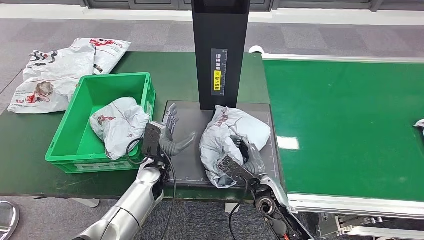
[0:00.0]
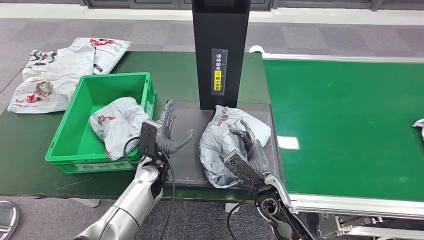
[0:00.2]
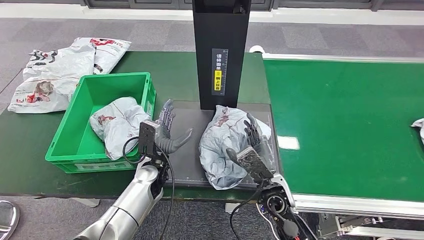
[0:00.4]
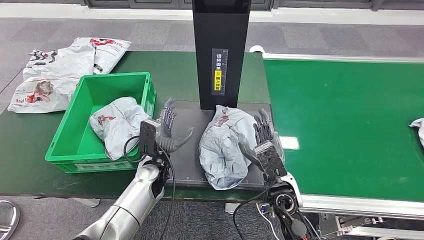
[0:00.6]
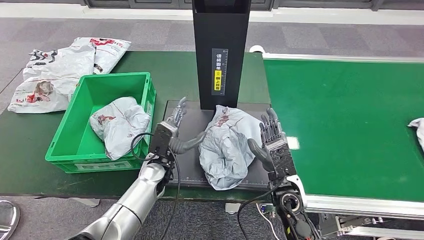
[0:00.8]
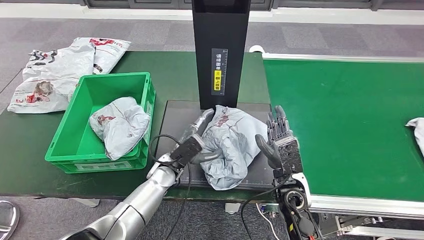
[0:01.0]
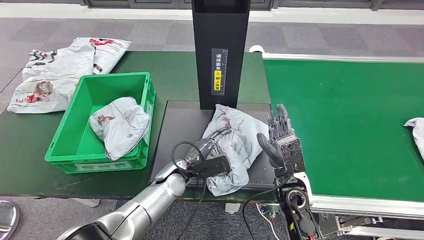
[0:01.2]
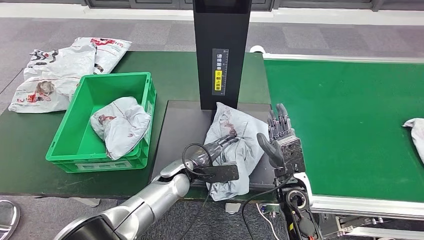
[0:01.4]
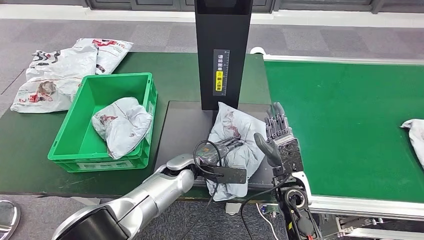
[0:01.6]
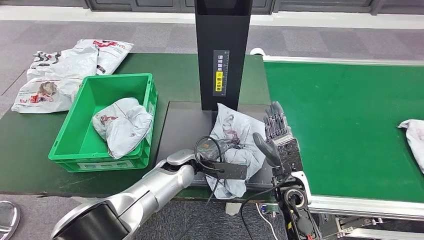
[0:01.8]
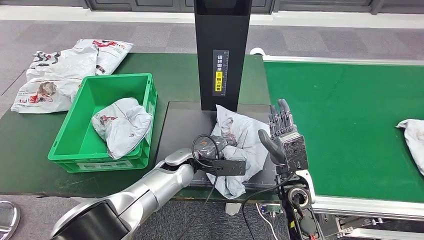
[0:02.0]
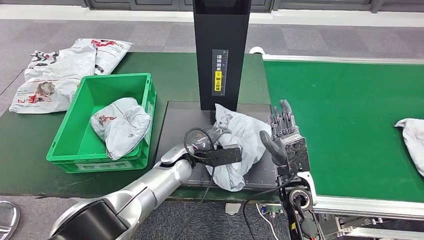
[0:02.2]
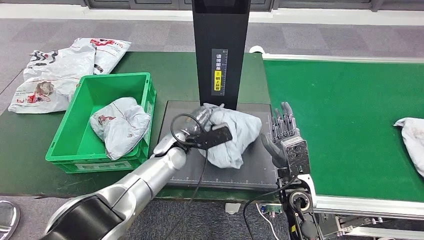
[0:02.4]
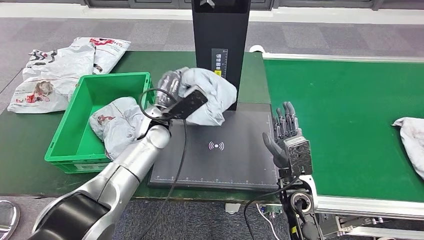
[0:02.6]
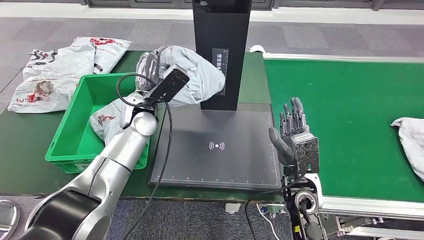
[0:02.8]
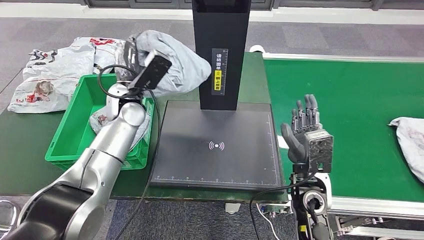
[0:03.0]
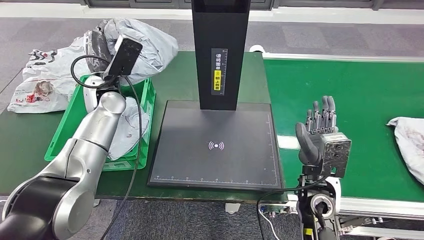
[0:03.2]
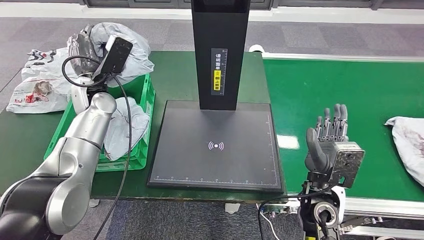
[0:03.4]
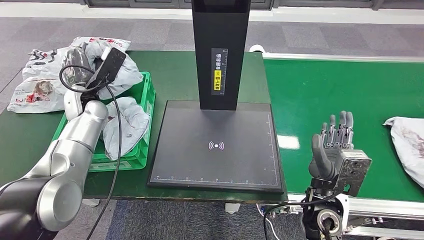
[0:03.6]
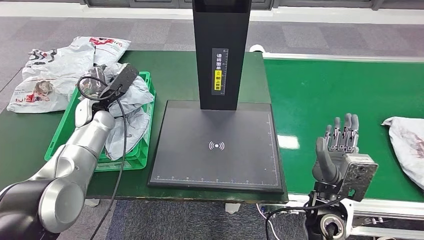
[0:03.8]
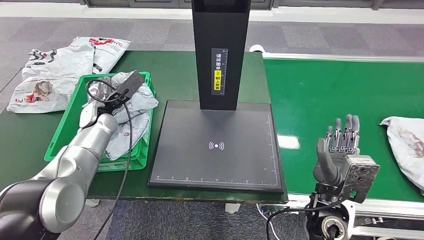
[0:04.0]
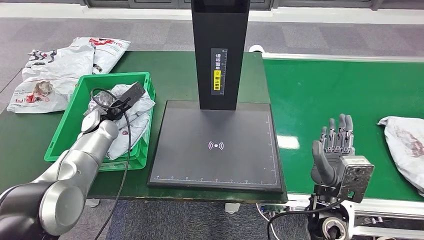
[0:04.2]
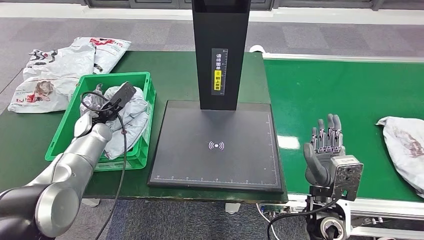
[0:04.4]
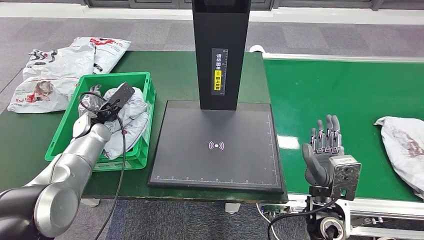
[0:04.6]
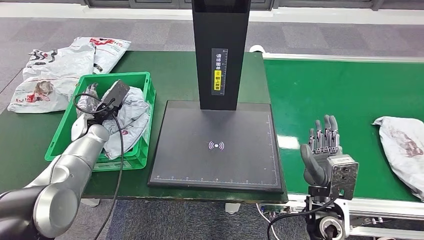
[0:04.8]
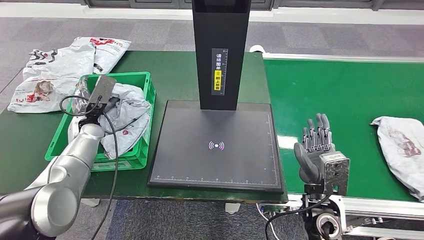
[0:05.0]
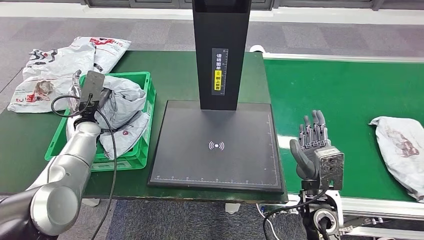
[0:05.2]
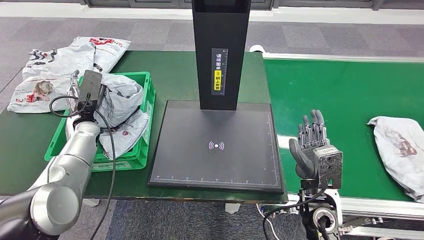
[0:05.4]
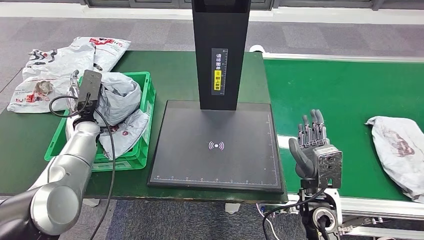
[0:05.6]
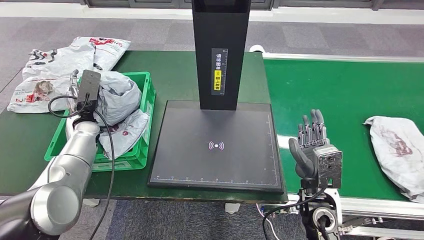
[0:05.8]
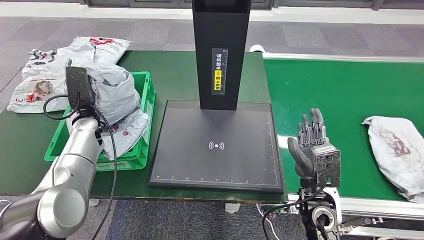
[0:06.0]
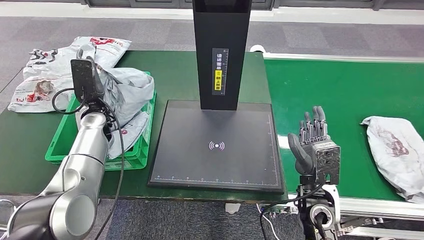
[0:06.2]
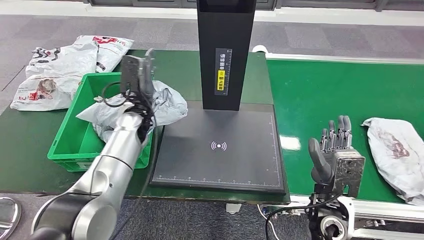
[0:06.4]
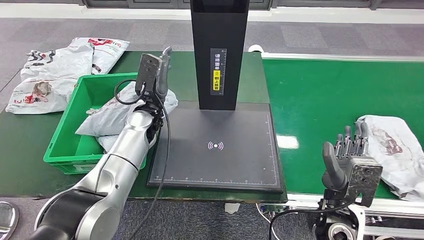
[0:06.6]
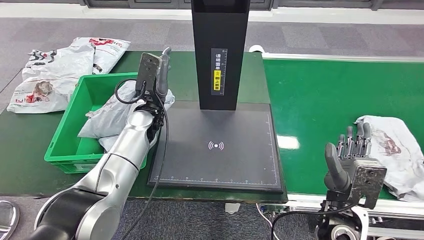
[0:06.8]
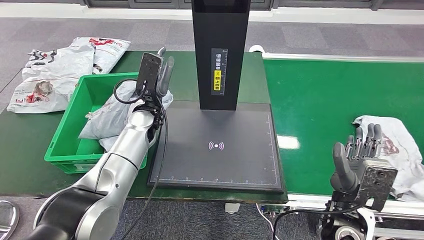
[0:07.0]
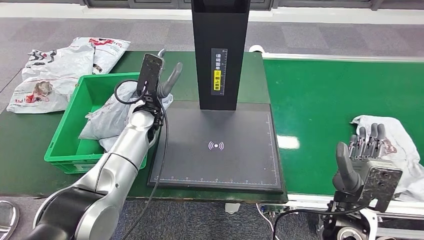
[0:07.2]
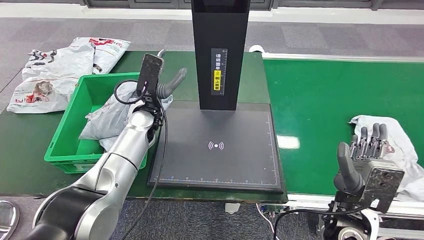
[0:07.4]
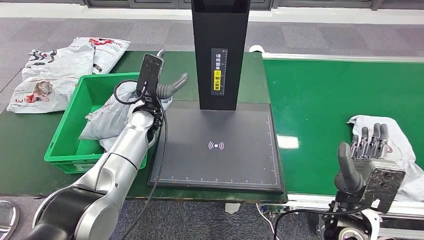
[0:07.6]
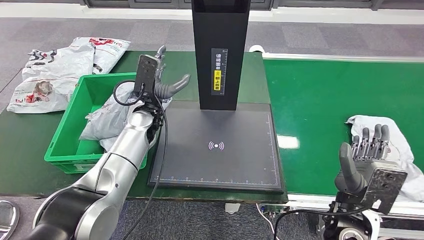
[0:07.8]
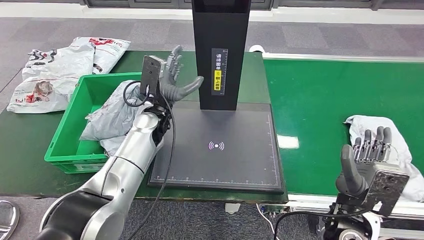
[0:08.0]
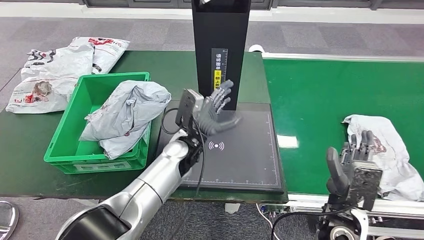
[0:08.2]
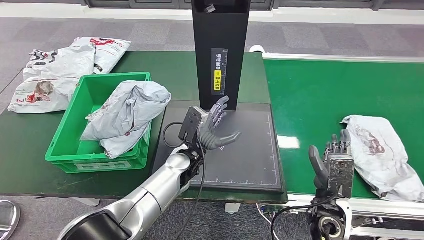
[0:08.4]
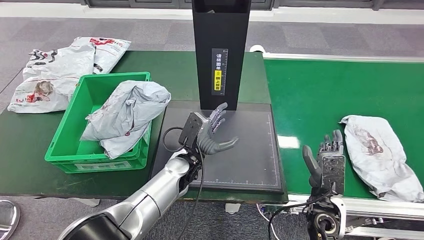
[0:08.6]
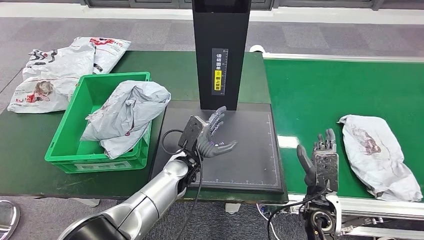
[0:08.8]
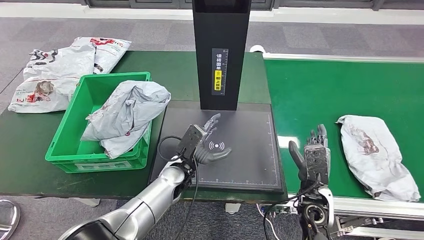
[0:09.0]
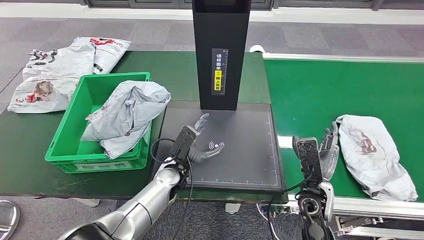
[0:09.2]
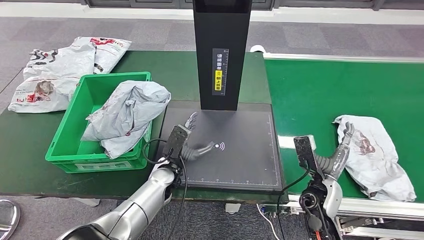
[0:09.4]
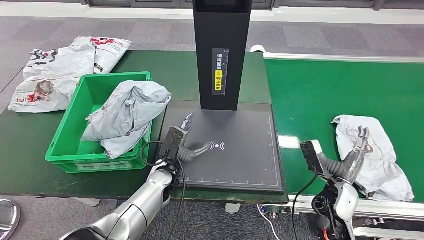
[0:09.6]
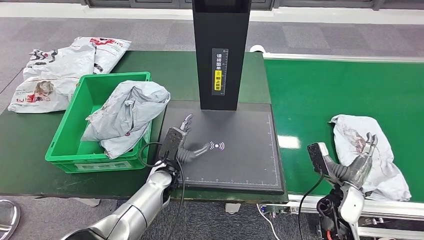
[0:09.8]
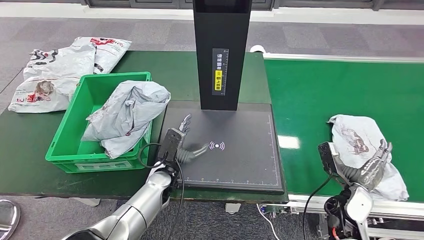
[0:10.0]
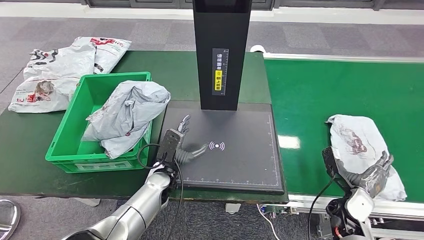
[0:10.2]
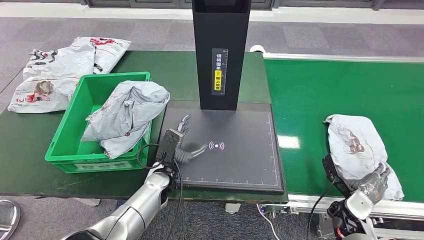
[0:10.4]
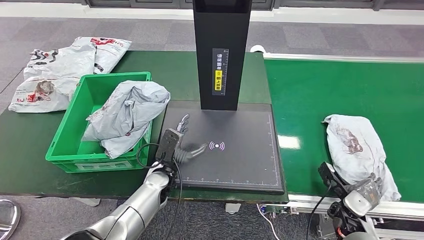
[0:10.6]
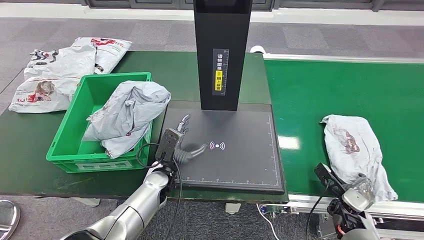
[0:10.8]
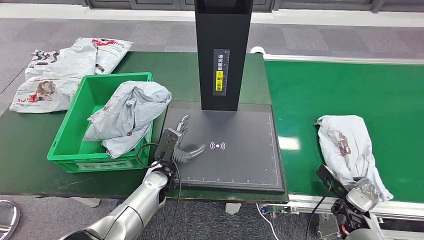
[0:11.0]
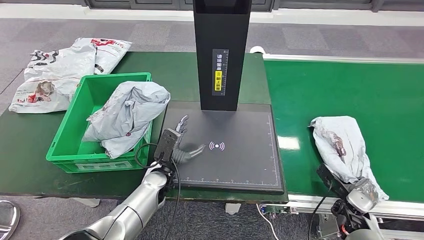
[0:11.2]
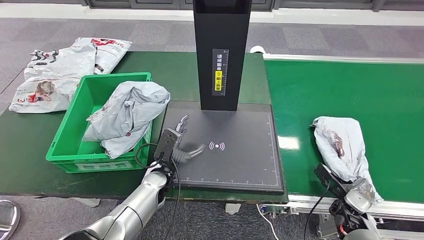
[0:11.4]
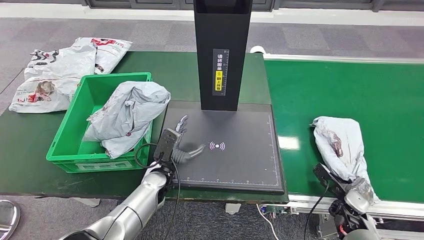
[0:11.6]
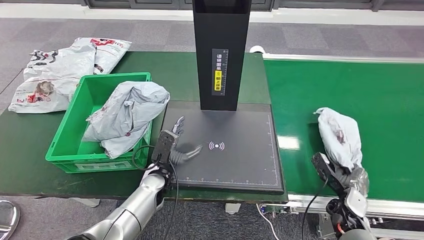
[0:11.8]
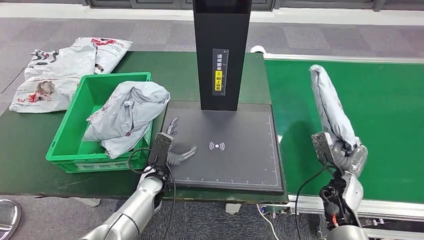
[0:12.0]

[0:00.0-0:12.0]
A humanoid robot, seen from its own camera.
Step, 0:00.8 to 0:02.6: Pick up the parcel from the inbound machine.
Step, 0:03.0 to 0:10.0: Place the parcel into the delivery box.
Step, 0:10.2 to 0:11.8: Pick up the parcel from the conveyor belt.
0:09.0 to 0:10.4: The right hand moves to the right and downward, roughly 15 cm. The left hand changes place by roughly 5 cm.
0:10.4 to 0:12.0: The right hand moves roughly 5 cm.

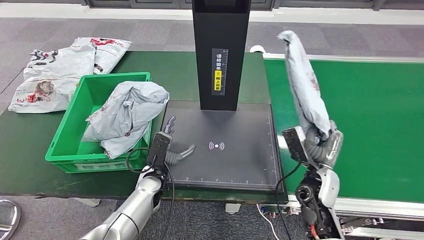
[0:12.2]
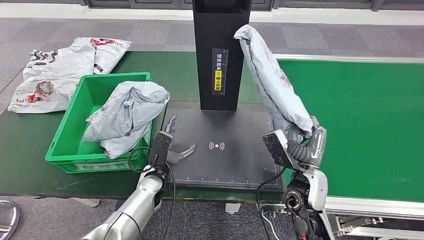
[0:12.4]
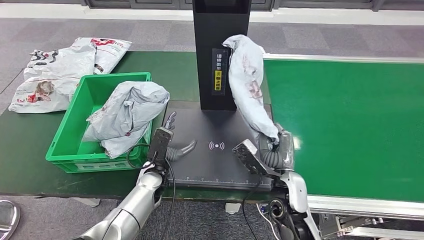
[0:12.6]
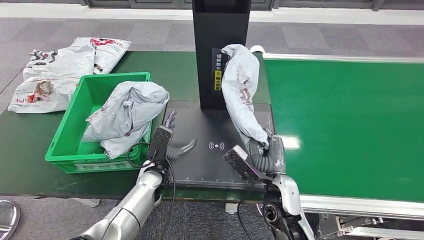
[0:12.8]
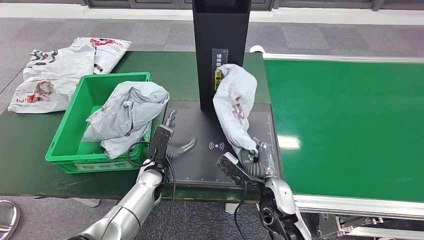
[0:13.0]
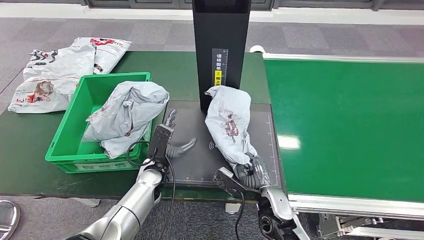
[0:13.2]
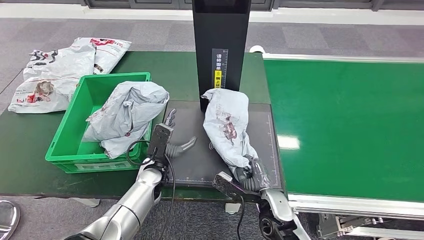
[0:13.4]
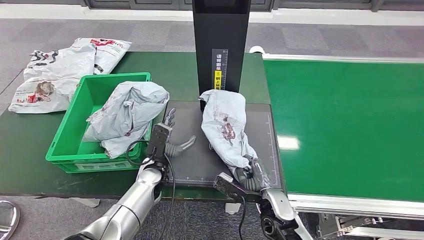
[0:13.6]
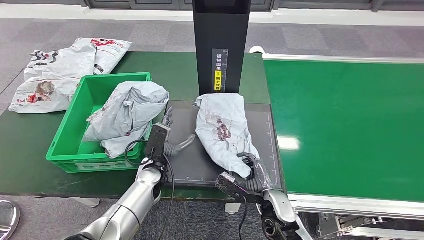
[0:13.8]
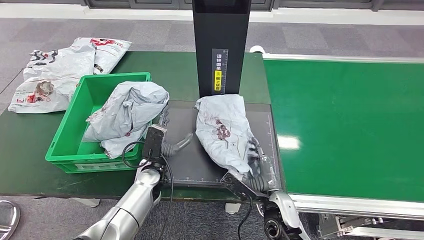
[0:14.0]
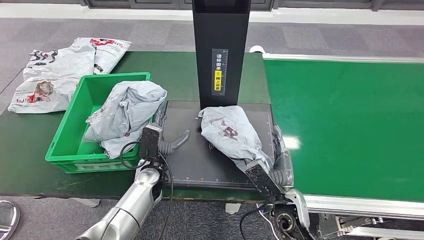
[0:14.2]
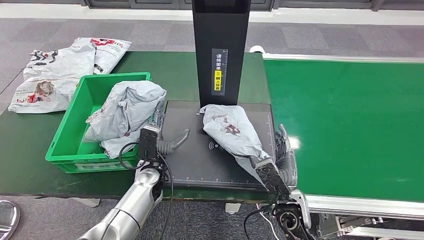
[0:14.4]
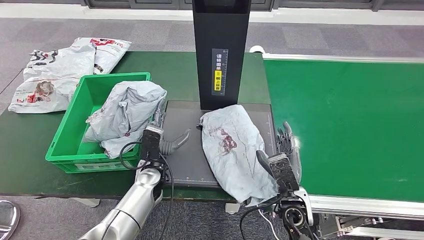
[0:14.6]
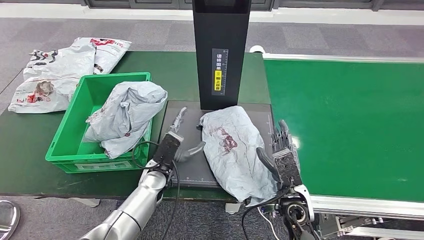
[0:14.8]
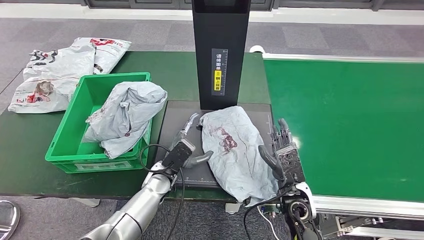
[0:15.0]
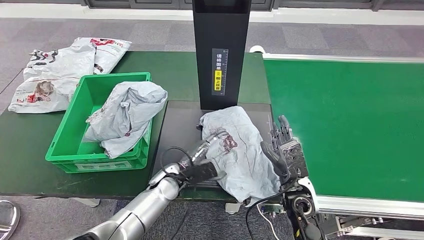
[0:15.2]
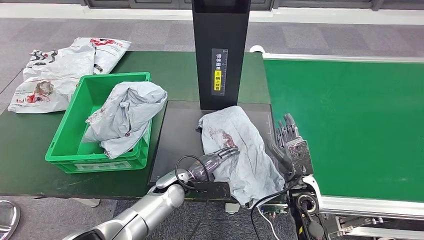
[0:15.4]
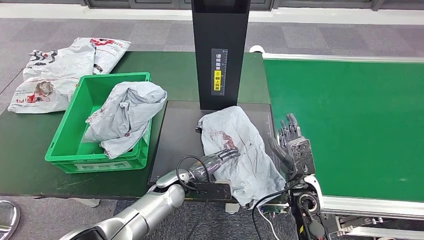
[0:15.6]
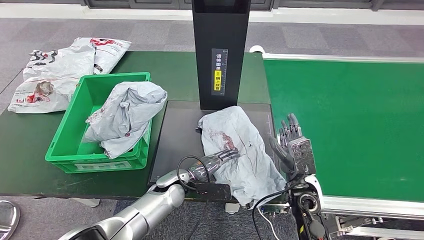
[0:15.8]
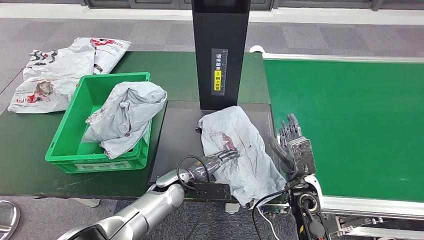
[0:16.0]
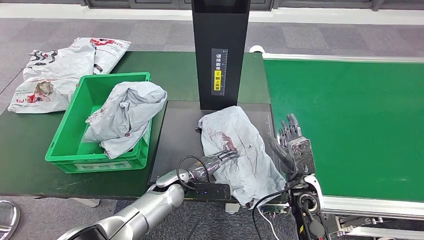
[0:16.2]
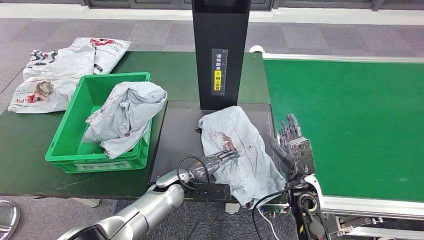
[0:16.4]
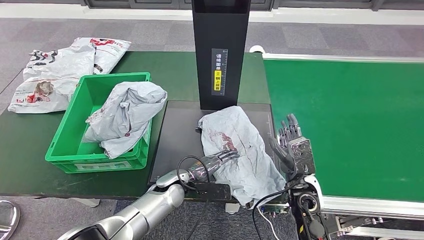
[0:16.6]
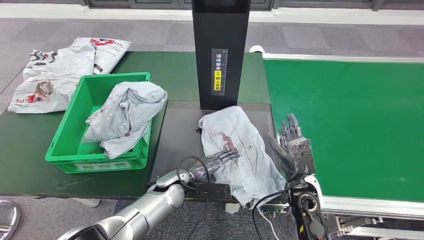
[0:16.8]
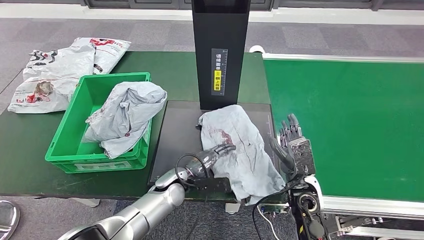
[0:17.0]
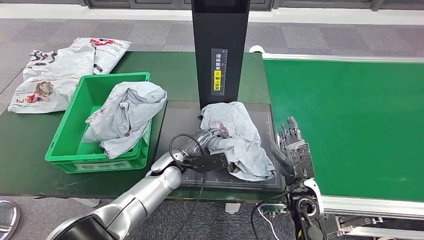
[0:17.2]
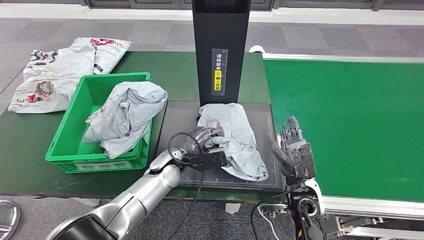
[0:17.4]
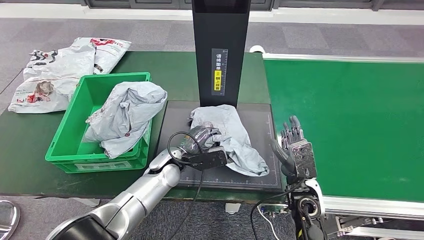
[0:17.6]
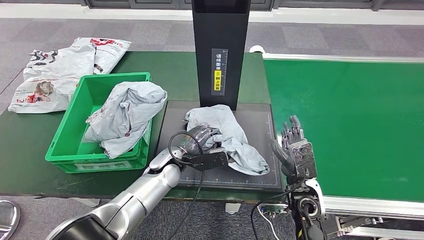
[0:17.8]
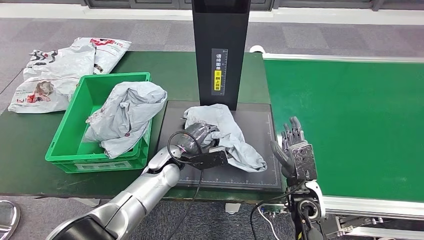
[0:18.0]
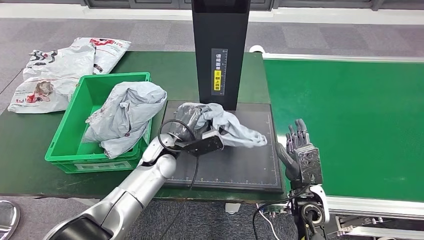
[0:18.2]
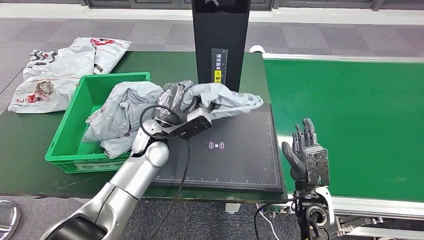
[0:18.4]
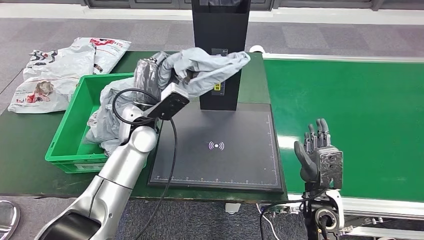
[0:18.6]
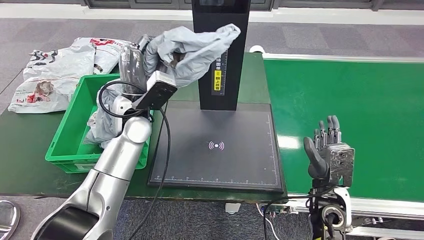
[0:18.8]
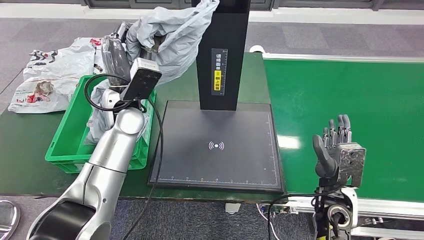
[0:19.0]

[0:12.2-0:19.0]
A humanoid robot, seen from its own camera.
Step, 0:12.2 to 0:15.2: Place the parcel onto the inbound machine.
Step, 0:15.4 to 0:18.2: Pick up the parcel from the inbound machine.
0:13.6 to 0:15.0: The right hand ends up about 5 cm from where it was.
0:16.2 to 0:17.6: The left hand shifts by about 5 cm.
